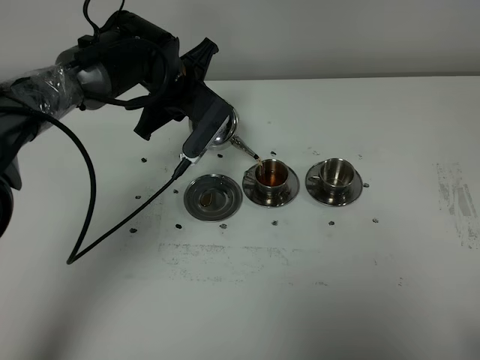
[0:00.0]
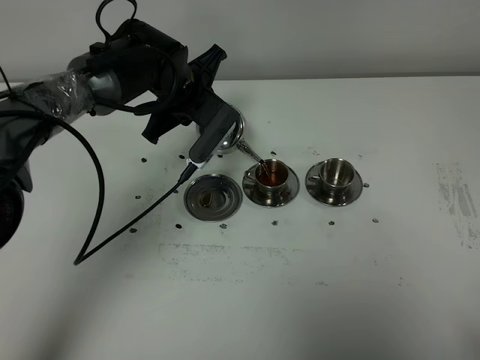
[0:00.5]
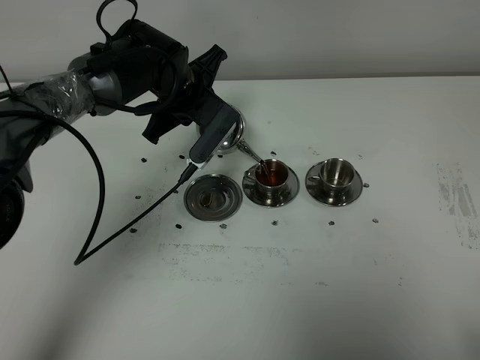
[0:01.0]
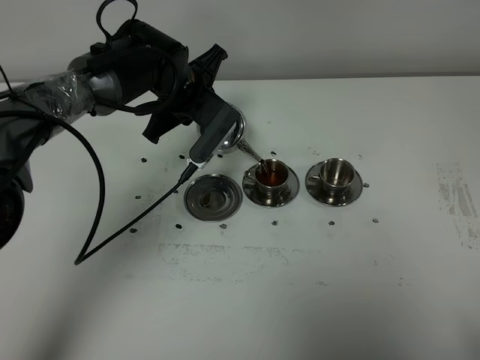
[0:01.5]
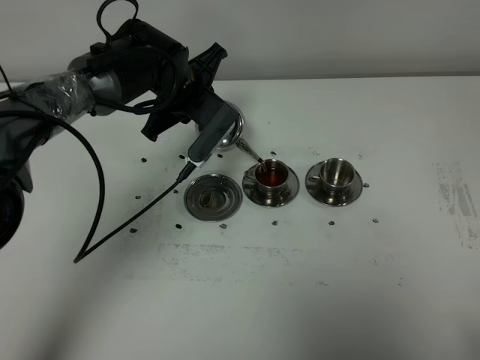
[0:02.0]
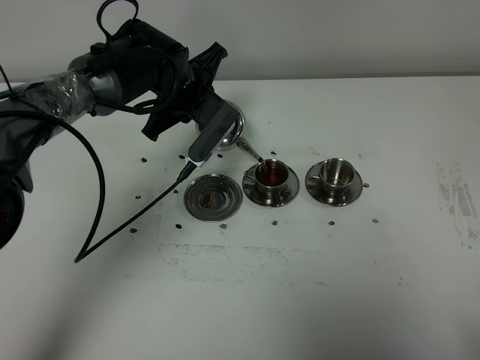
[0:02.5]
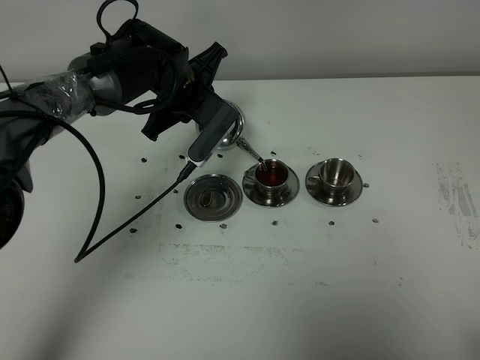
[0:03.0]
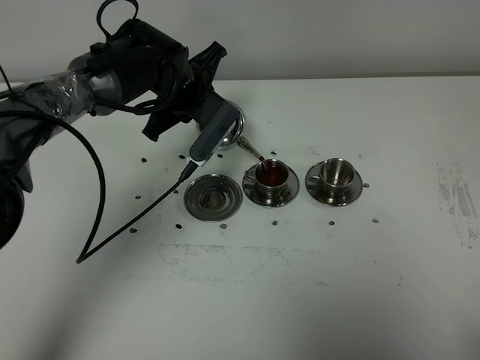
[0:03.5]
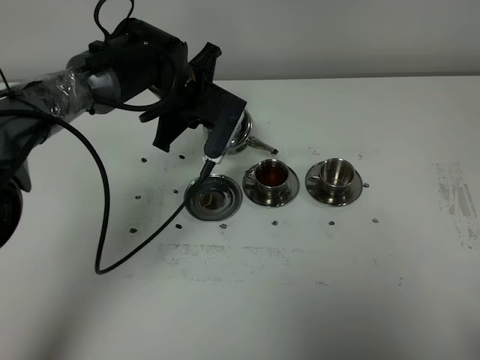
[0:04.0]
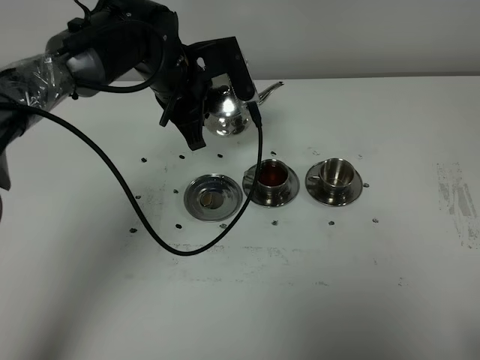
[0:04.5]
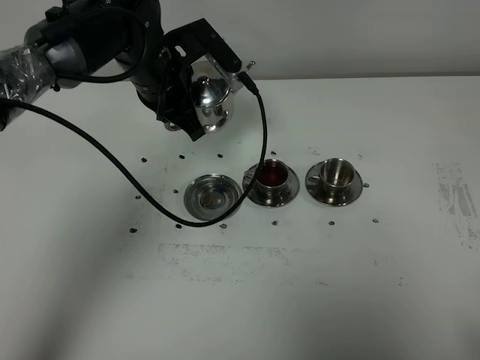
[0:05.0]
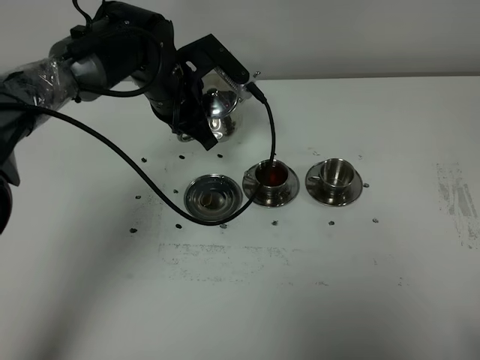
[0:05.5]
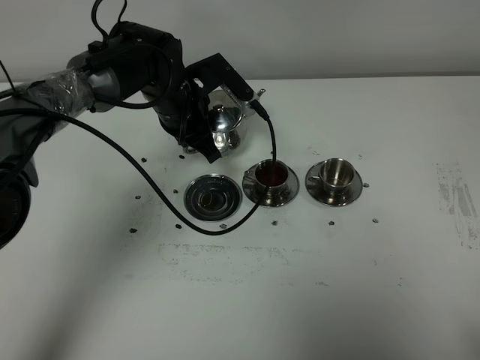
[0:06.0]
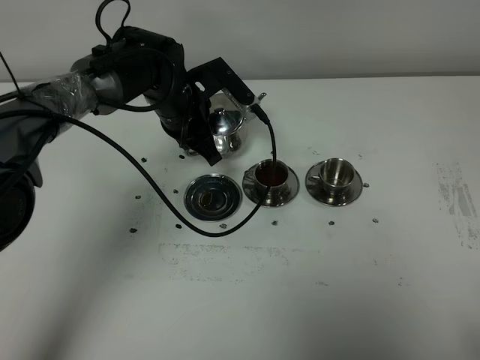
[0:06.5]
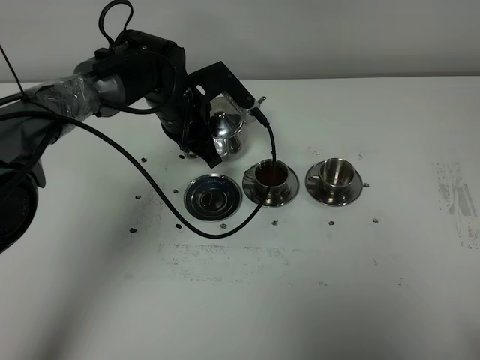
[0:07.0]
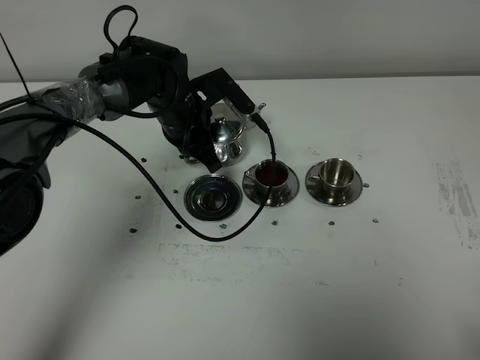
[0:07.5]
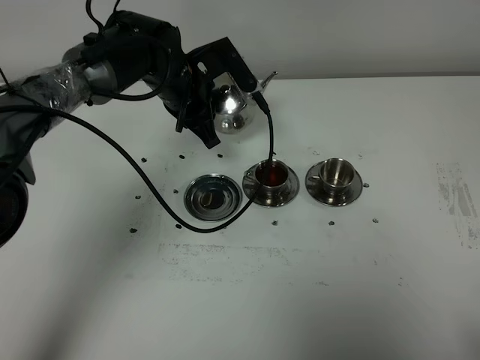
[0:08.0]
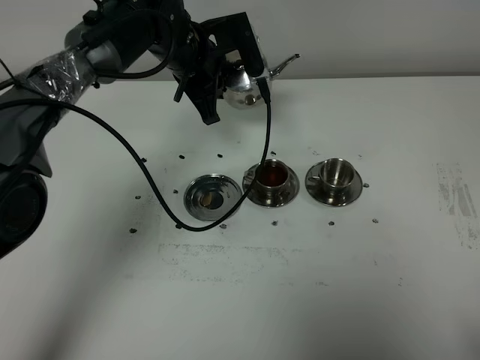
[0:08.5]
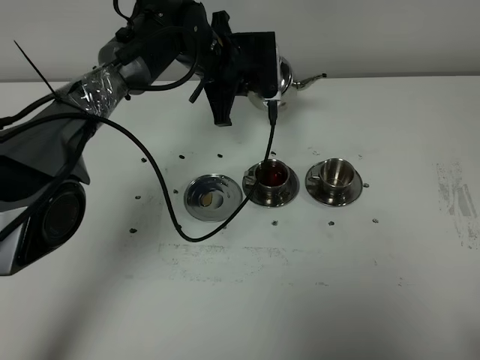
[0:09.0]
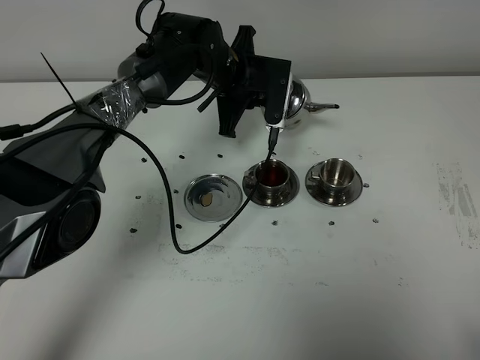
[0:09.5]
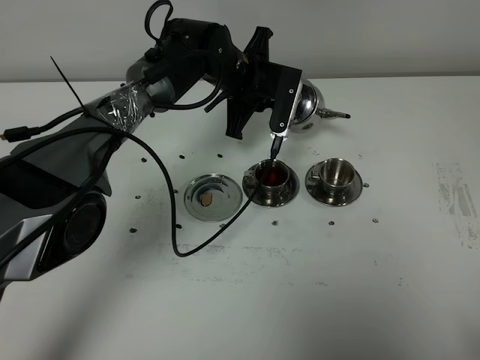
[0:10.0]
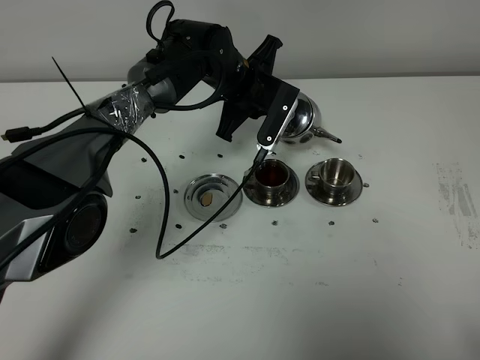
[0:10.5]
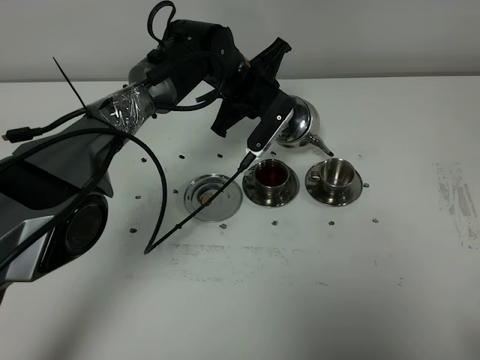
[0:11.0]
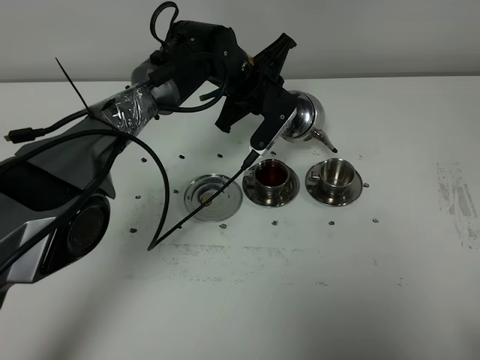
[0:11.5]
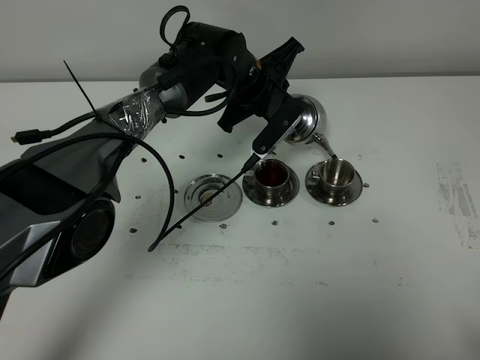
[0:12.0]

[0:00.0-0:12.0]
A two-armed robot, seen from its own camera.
Task of the whole recording: grasp the stainless steel teapot and pour the tea into the two stainless steel teacups one by one, put the stainless steel teapot back in its original place.
Step, 0:00.0 to 0:03.5: Pour tea into the teacup with the left gripper.
0:00.0 to 0:02.0: The two grippers keep their place.
0:02.0 to 0:04.0: The grippers move only a little.
0:06.0 to 0:08.0: The grippers stay close to where they were, moving slightly.
0:08.0 to 0:10.0: The left gripper goes about 5 cm to the right.

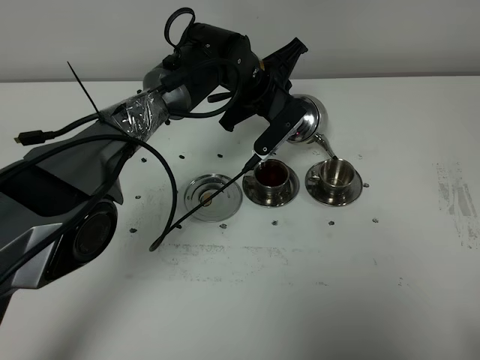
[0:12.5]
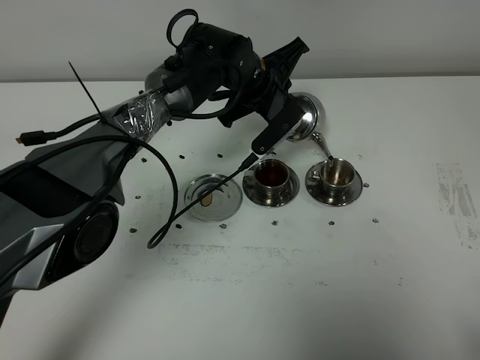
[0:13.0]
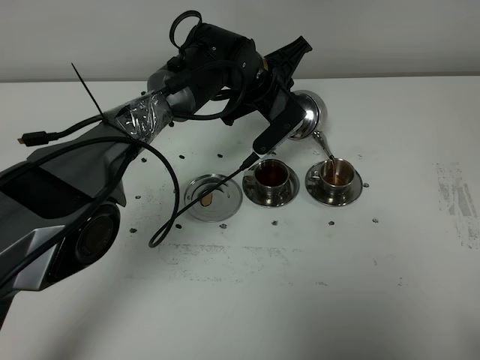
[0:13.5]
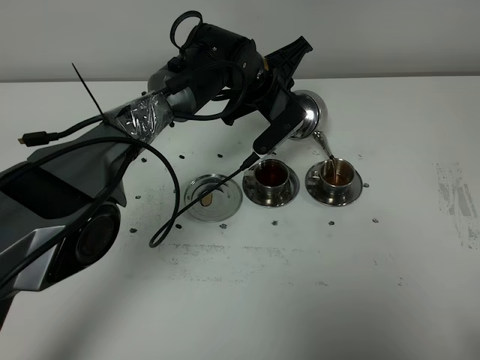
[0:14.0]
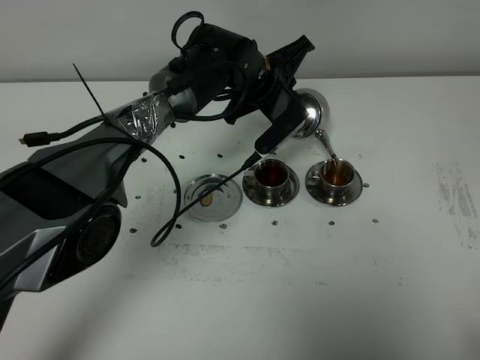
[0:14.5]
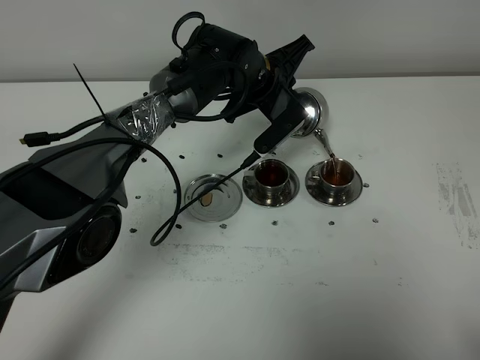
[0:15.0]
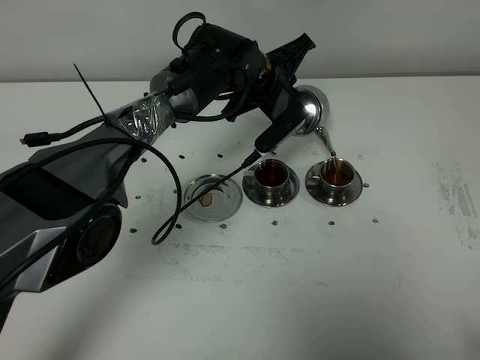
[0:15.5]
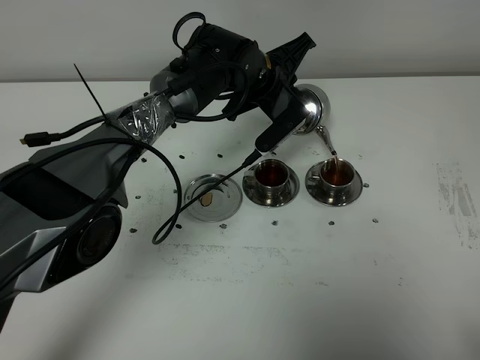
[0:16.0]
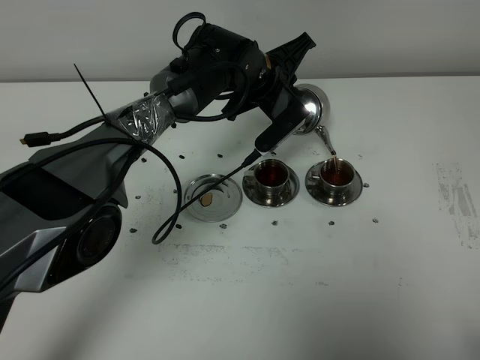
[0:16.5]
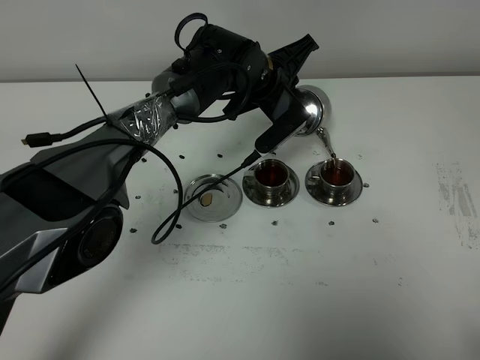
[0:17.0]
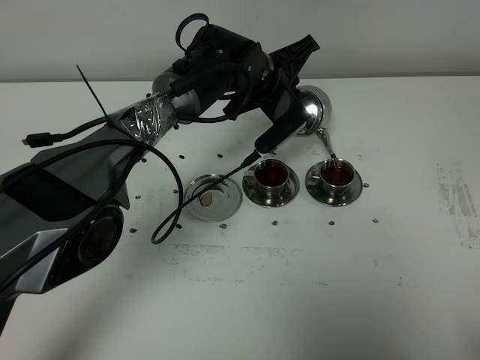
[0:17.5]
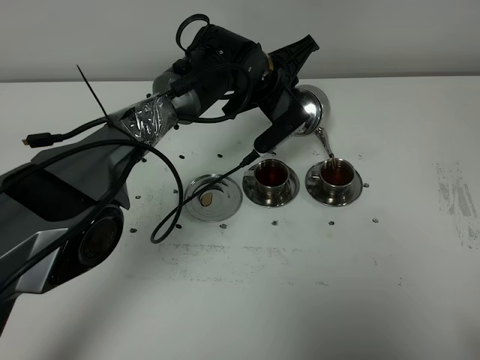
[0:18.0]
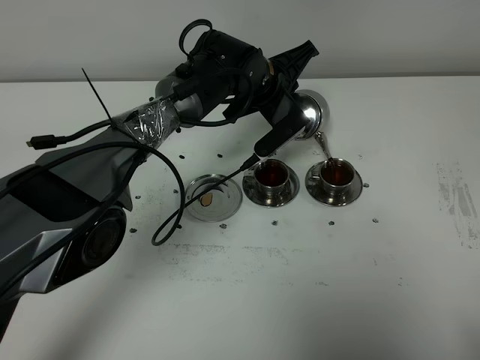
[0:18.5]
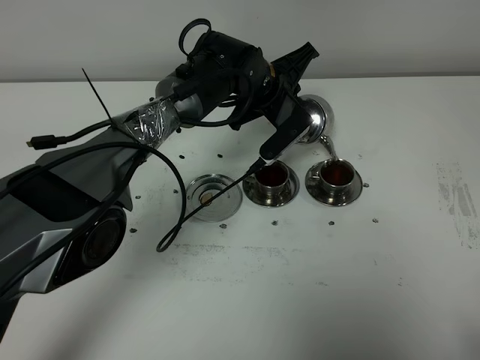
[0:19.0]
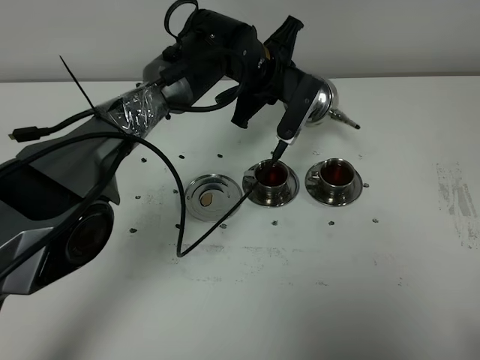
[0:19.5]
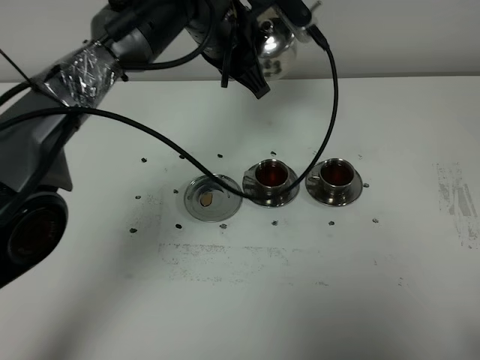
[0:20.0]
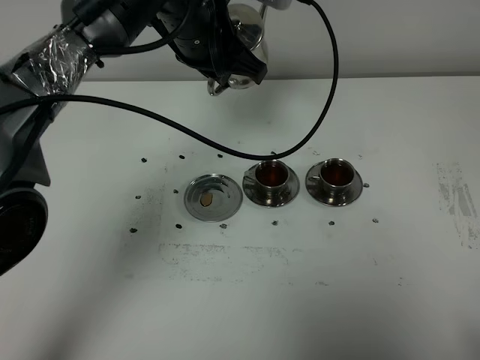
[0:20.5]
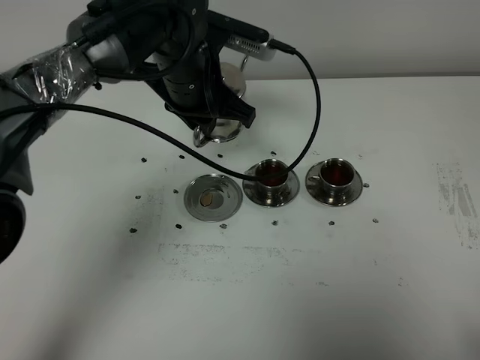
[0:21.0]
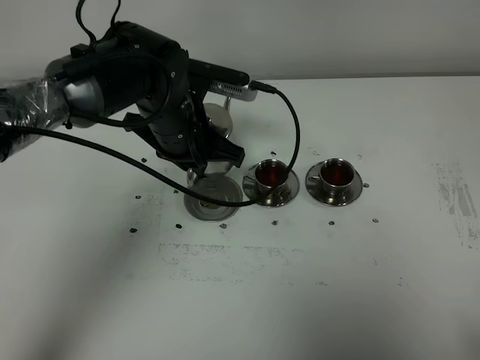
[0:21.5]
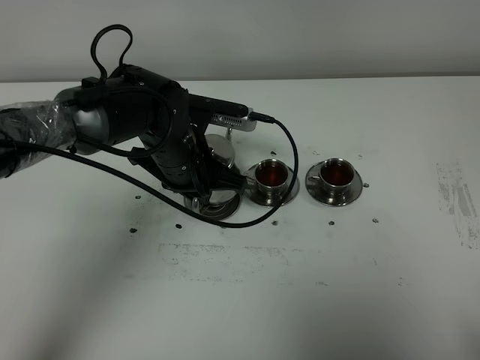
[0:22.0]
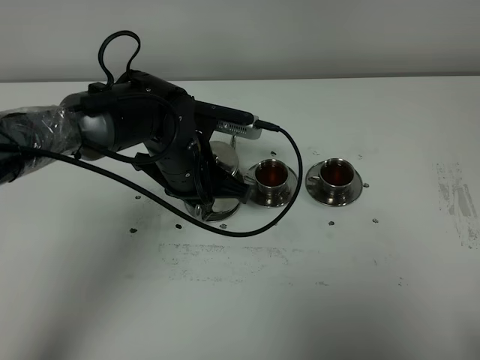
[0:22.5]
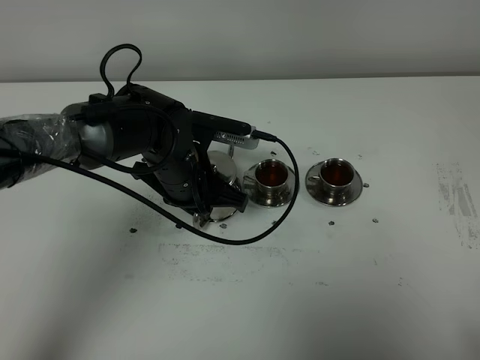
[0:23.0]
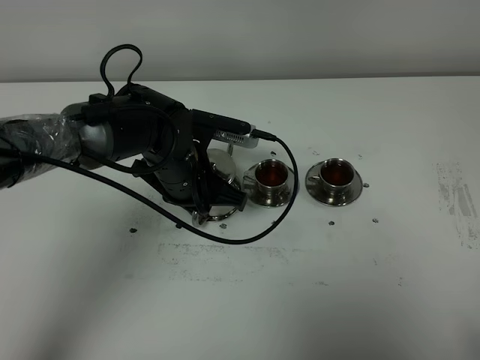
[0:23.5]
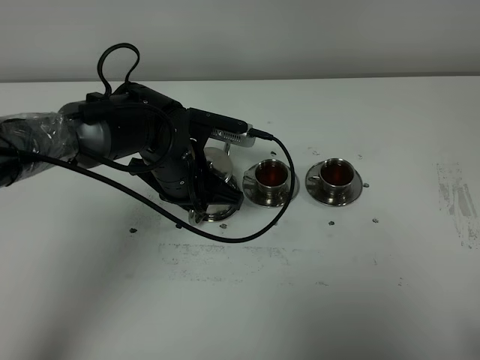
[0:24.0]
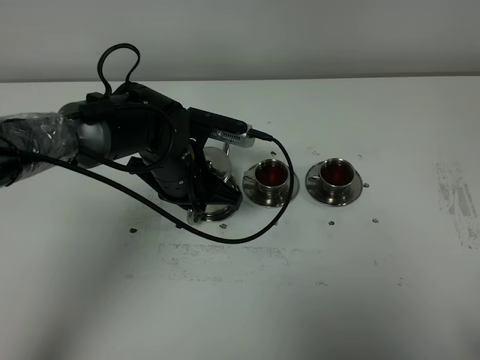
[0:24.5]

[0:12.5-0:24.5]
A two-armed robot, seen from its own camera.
Task of the whole recording: grasp the stainless steel teapot and pour the tea into the two stainless steel teacups one by one, put the stainless steel teapot back in its original place.
Step, 0:12.5 to 0:19.0: Pour tea into the teacup with the left gripper.
0:12.5 to 0:14.5: The grippers stay close to where they were, moving slightly.
0:14.5 to 0:18.5: Neither gripper changes place.
0:18.5 to 0:20.5: The left gripper heads upward, to the left and backward, covering some 15 cm.
0:20.5 to 0:22.5: The left gripper shifts approximately 15 cm downward and backward.
0:22.5 to 0:24.5: The two grippers keep their place.

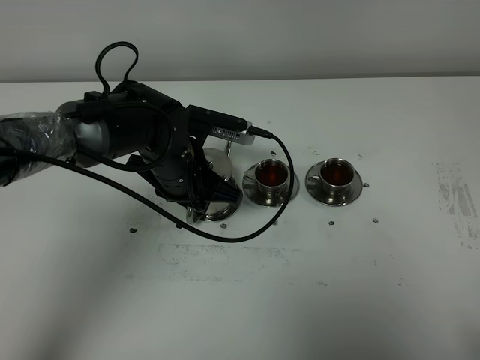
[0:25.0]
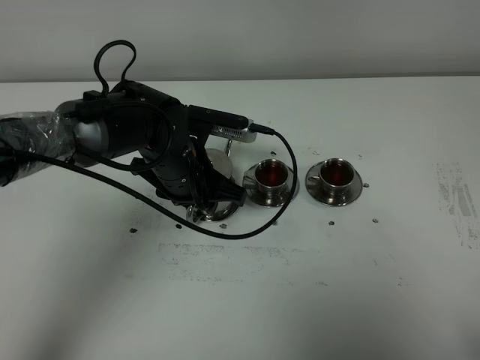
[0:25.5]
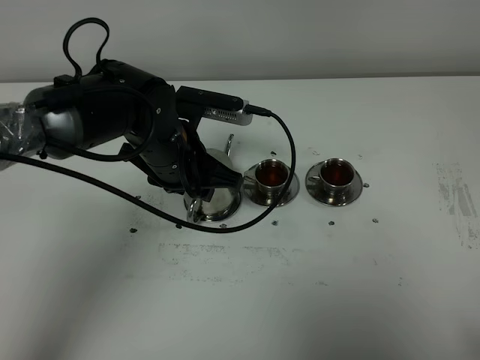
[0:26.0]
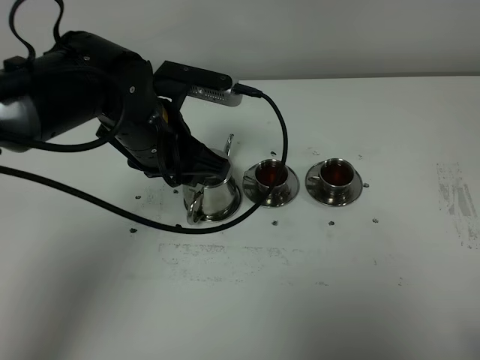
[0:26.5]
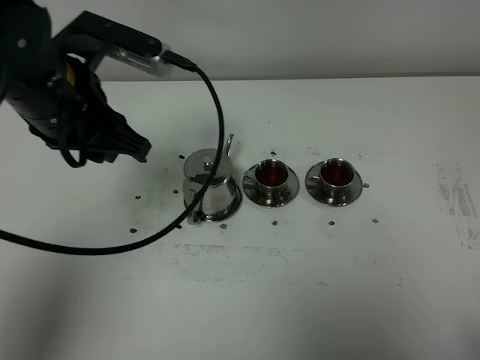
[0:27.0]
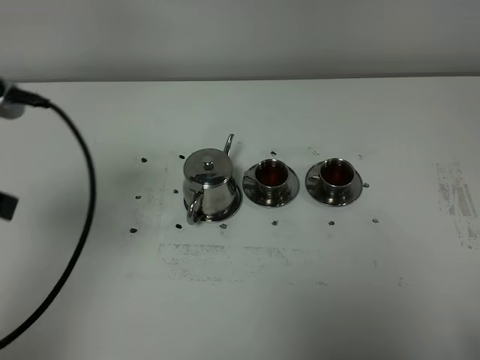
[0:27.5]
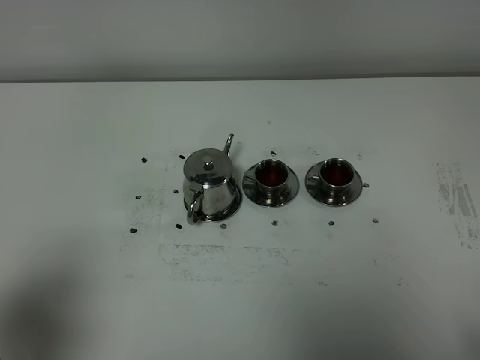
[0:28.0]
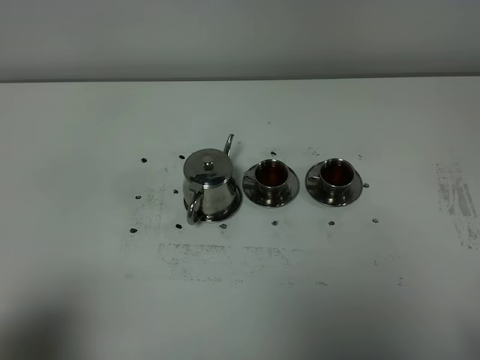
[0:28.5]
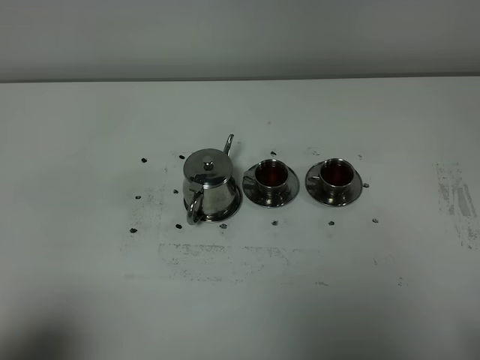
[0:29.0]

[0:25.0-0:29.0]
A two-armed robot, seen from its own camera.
Task of the whole recording: grasp the stainless steel teapot and pour the tea into the two stainless steel teacups one by one, put the stainless steel teapot back in its original place.
0:25.0 to 0:27.0: The left gripper is displaced upward and to the left by some 20 cm.
0:27.0 to 0:29.0: The left gripper is displaced backward and to the left by about 30 cm.
